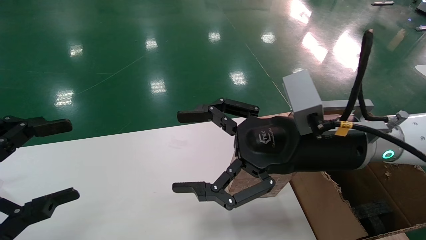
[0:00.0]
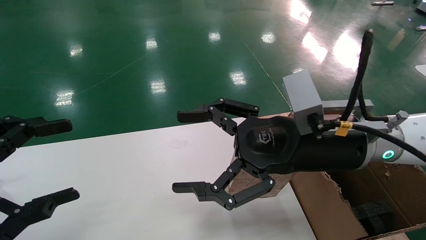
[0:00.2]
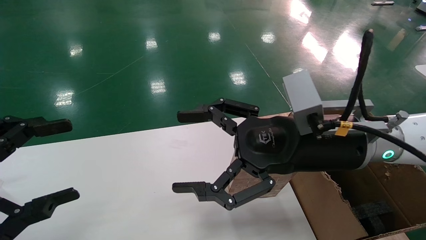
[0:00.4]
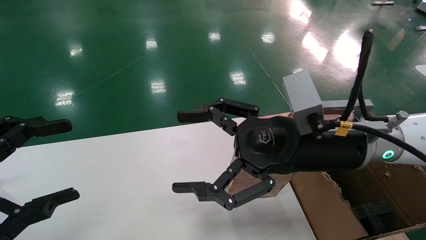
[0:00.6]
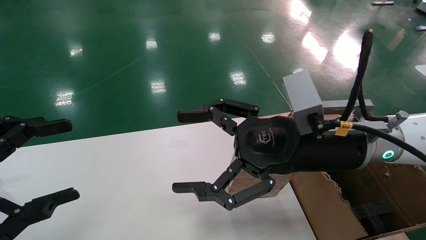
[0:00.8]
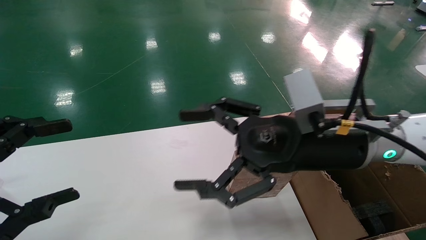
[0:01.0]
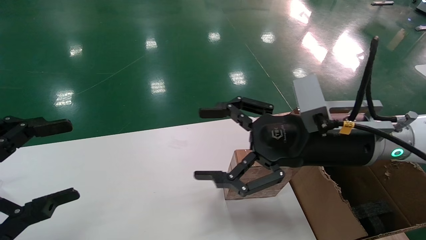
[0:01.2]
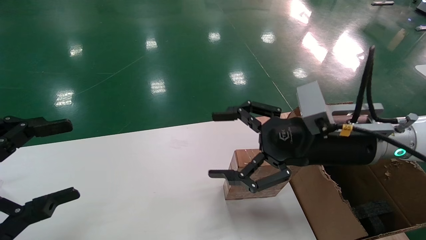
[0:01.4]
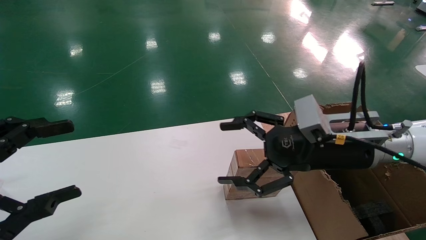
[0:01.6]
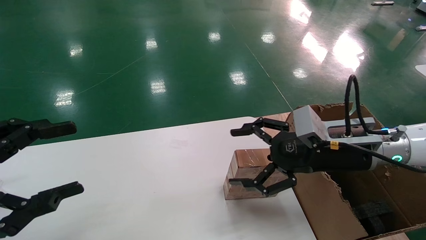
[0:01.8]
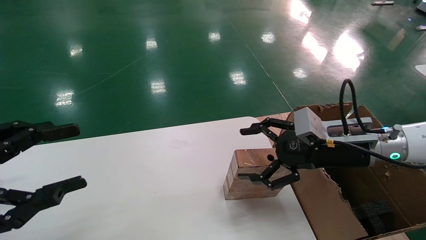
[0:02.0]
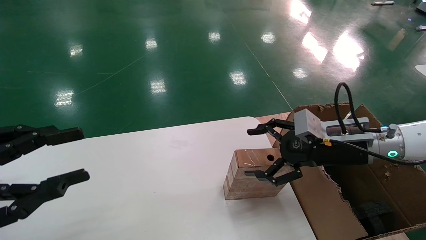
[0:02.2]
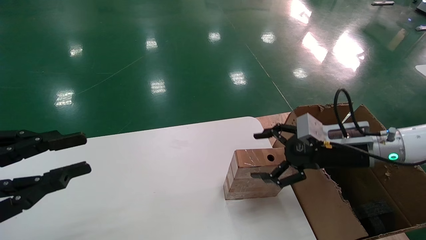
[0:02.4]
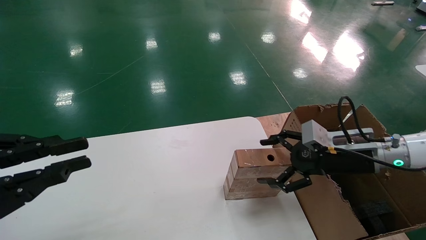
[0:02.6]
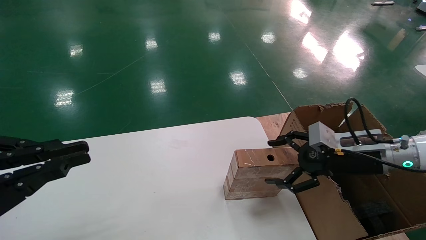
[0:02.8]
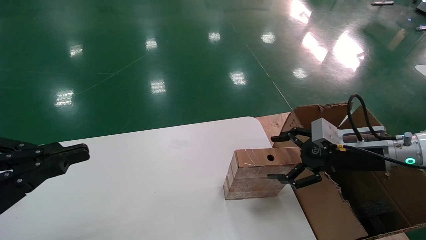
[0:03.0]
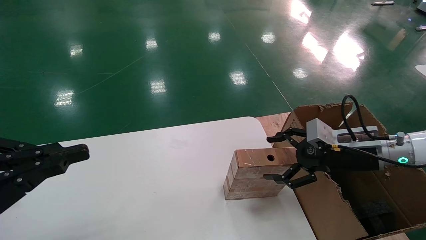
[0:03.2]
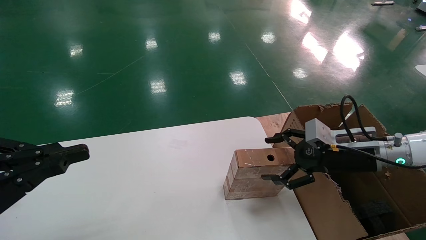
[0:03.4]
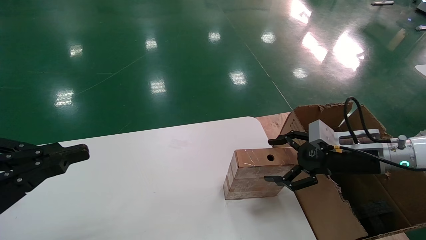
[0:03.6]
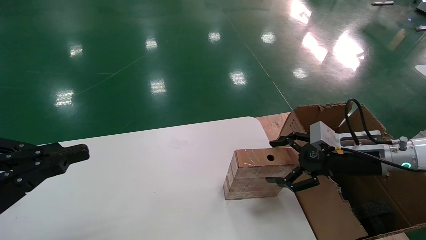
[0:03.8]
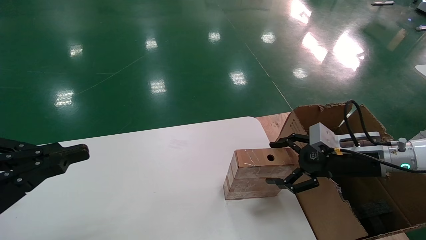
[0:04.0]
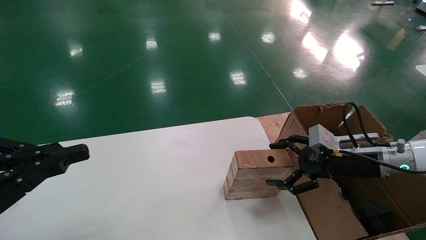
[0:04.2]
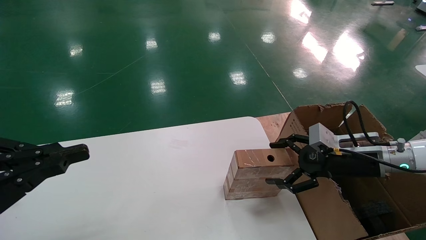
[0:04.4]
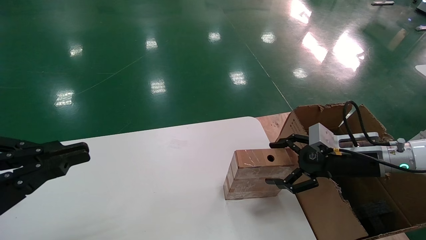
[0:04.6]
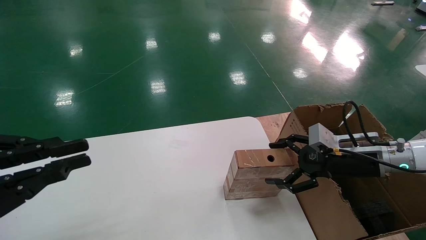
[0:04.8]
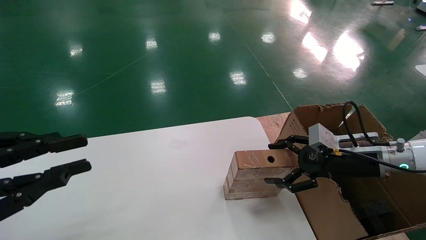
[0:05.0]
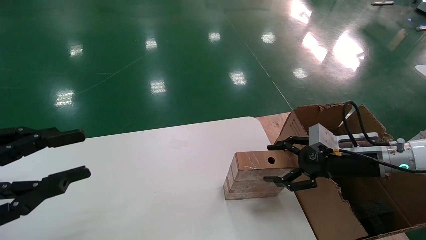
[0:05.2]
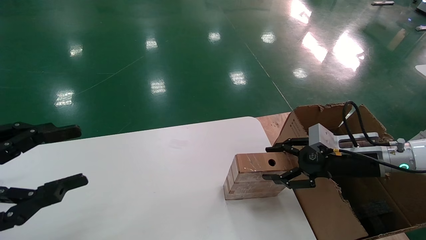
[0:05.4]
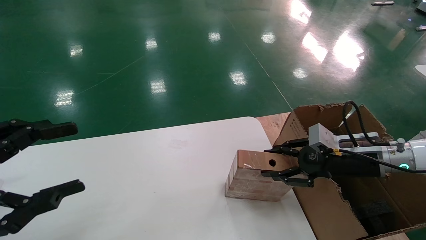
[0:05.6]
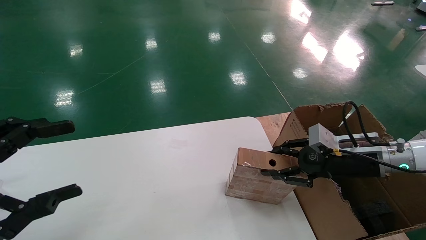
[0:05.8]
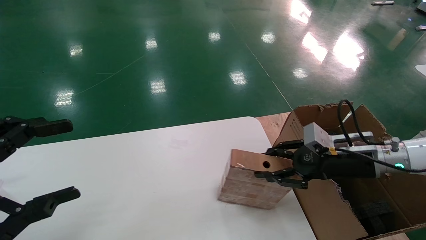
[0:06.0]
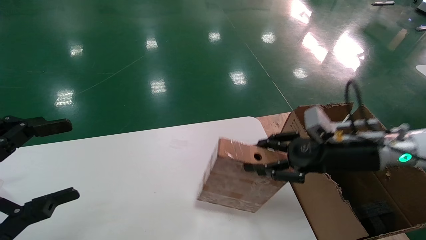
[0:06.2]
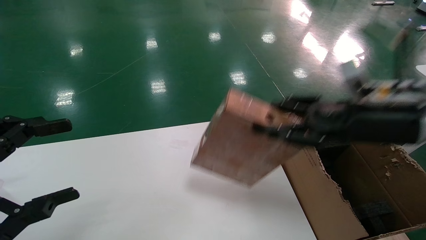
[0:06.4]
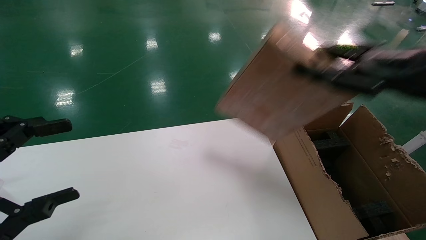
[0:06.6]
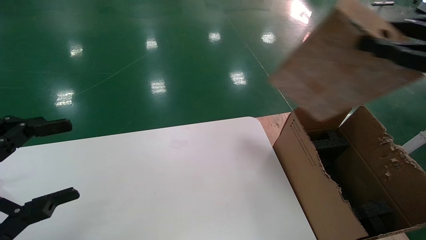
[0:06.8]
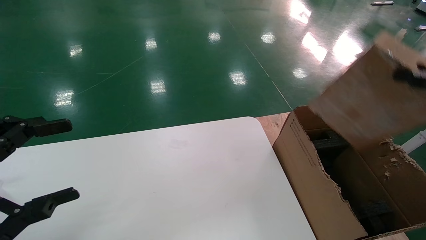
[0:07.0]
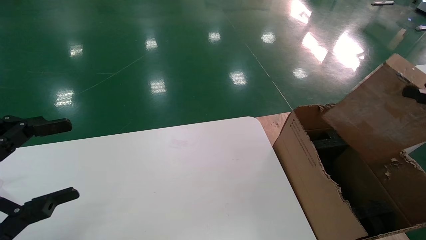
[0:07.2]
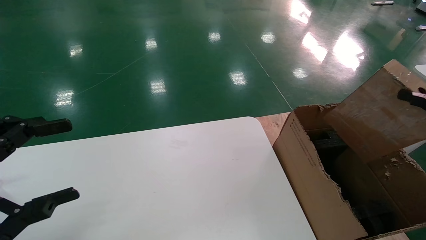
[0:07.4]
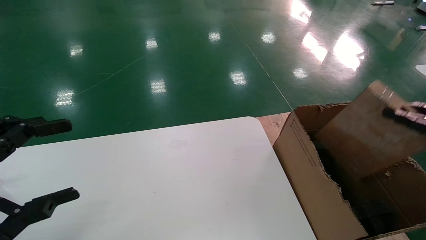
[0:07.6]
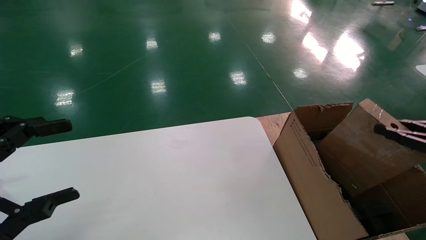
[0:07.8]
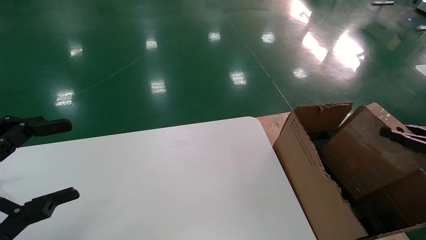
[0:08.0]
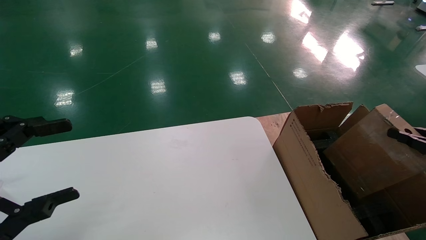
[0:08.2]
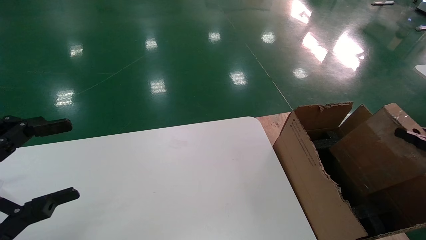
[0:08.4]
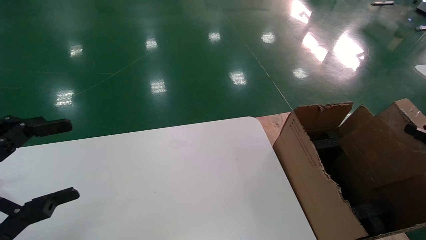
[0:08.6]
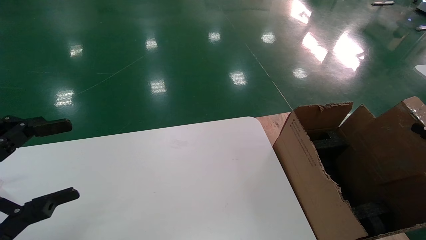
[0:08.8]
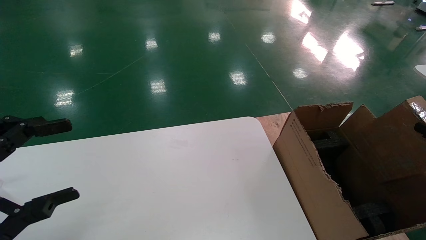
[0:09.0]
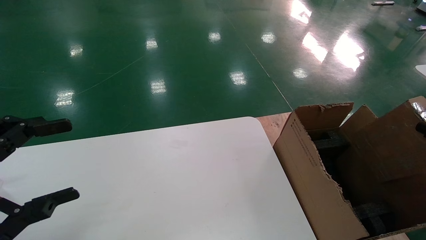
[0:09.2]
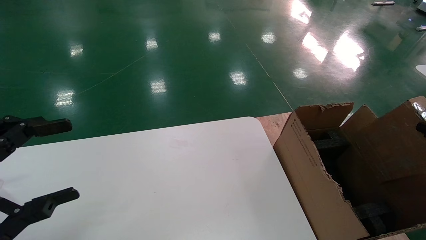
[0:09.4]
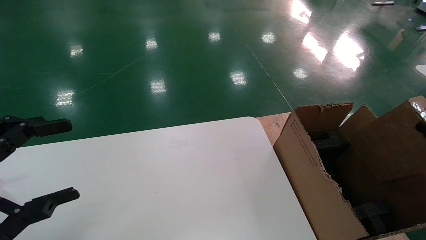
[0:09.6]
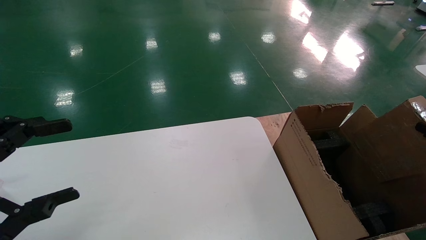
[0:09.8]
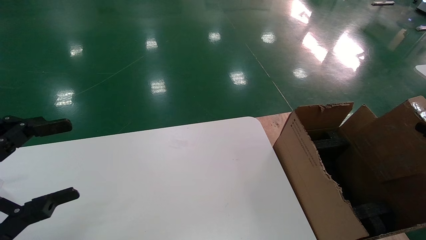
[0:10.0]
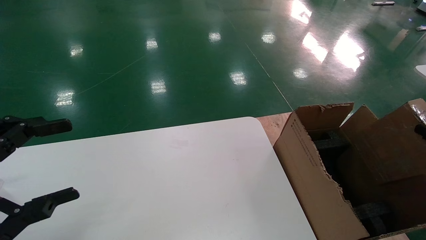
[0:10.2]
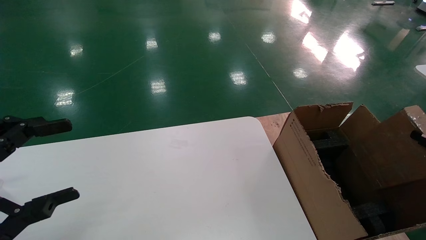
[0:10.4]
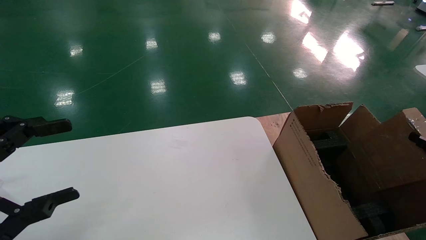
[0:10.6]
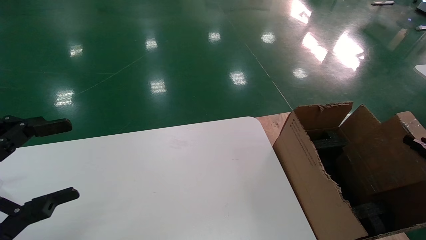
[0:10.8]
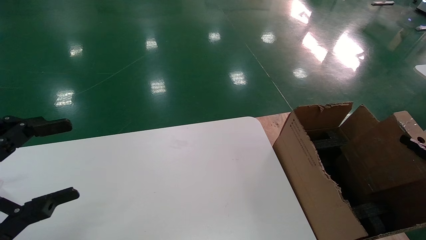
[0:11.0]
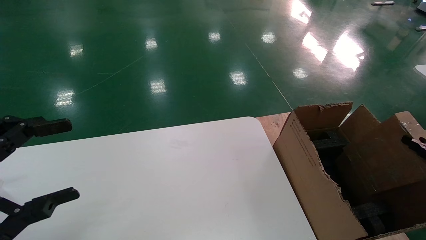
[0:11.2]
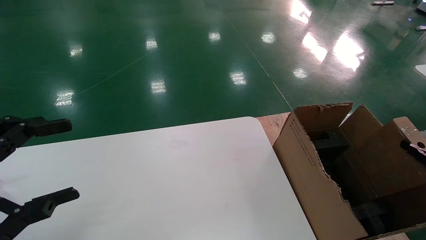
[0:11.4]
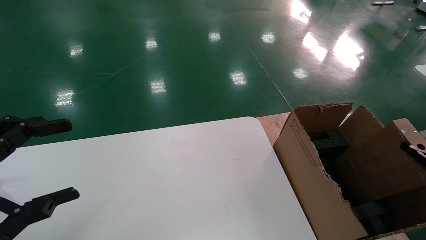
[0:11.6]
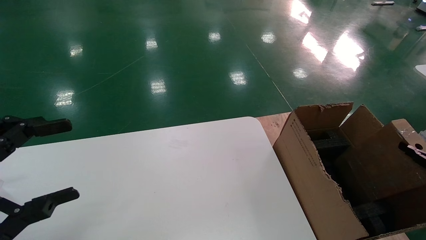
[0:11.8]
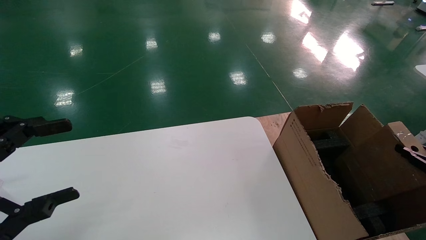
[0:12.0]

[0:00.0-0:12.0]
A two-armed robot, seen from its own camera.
Task of the whole recording: put the box on the table into the big box.
Step, 0:01.4 to 0:05.6: Pick up the mouse and the power cord paper box.
0:00.0 to 0:01.6: The right gripper is displaced to the right by approximately 5 cm.
0:01.6 to 0:03.0: The right gripper moves to the right and downward, some 10 cm; the left gripper closes its fingers.
0:03.0 to 0:04.4: The grippers move only a little.
0:04.4 to 0:06.0: The right gripper closes, while the left gripper opens up.
0:06.0 to 0:07.6: The right gripper moves to the right and backward, approximately 25 cm.
0:07.6 to 0:09.0: The right gripper shifts roughly 10 cm downward and to the right.
0:10.4 to 0:12.0: The grippers move only a little.

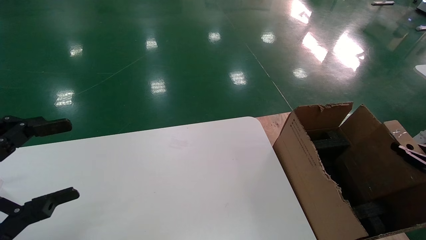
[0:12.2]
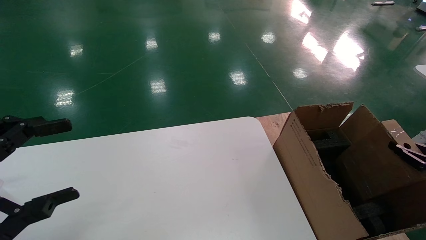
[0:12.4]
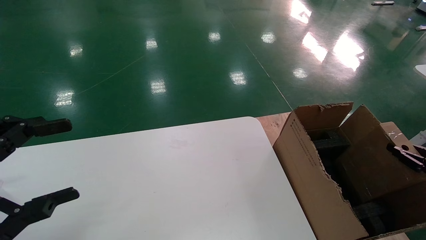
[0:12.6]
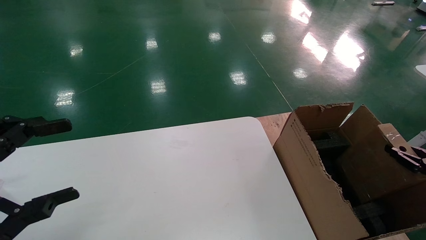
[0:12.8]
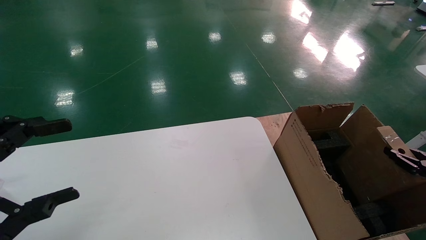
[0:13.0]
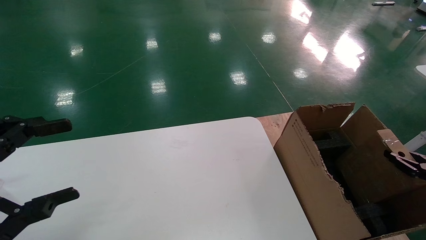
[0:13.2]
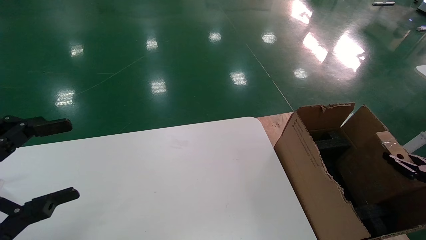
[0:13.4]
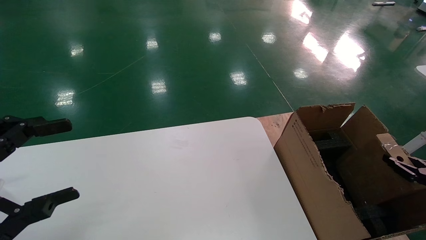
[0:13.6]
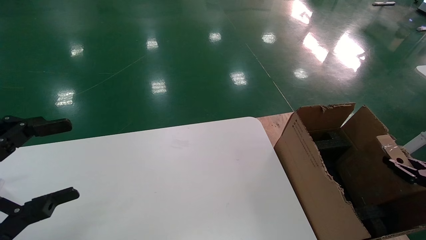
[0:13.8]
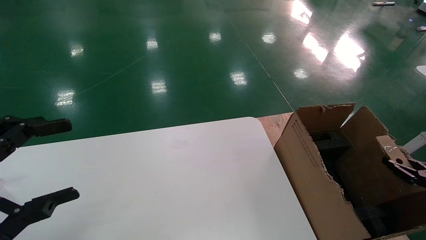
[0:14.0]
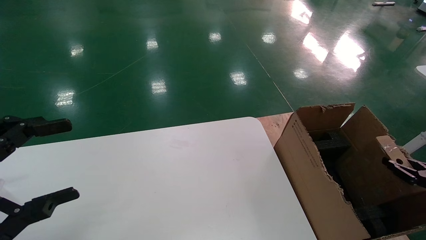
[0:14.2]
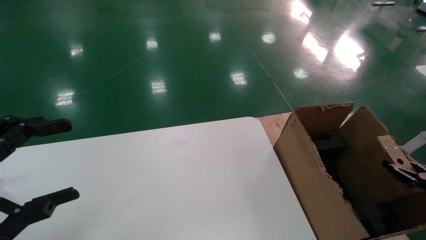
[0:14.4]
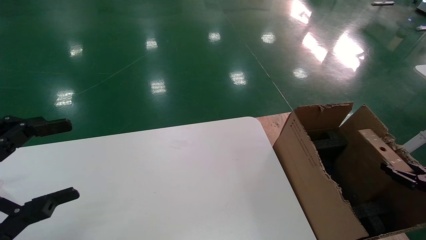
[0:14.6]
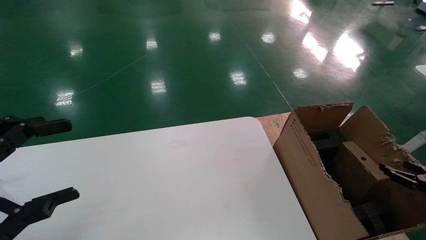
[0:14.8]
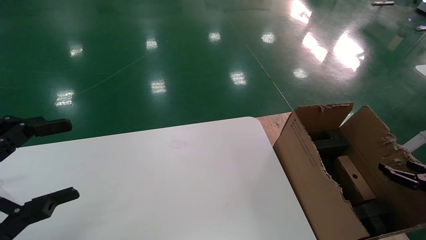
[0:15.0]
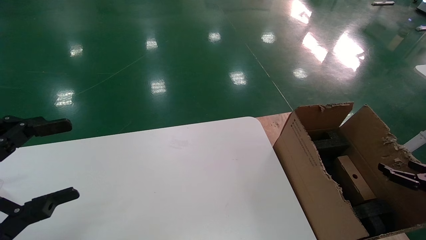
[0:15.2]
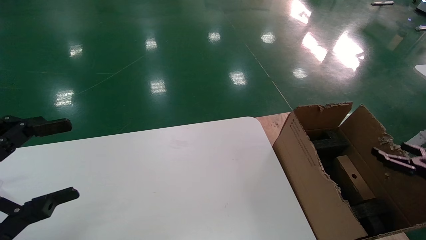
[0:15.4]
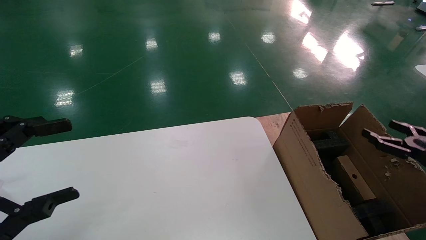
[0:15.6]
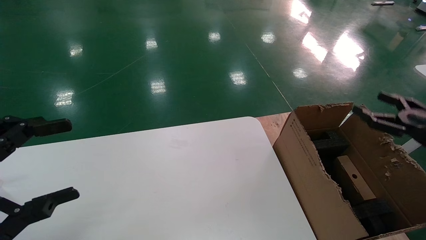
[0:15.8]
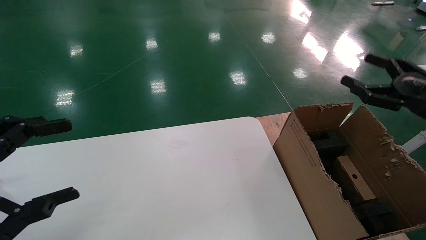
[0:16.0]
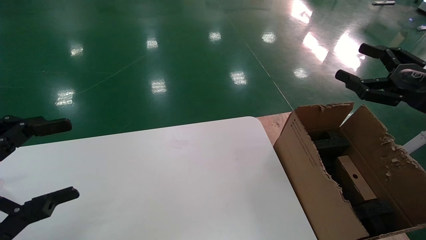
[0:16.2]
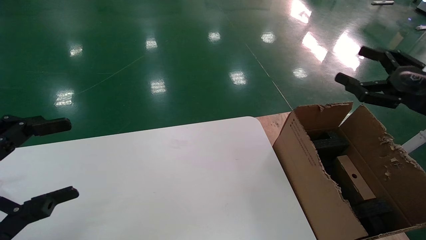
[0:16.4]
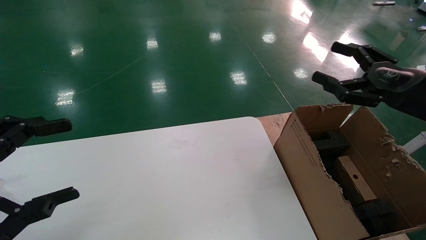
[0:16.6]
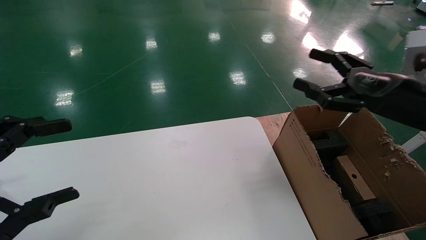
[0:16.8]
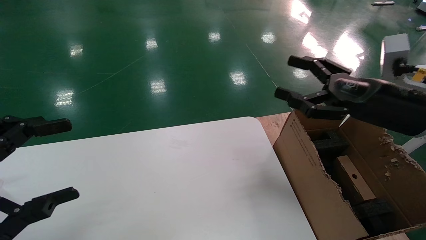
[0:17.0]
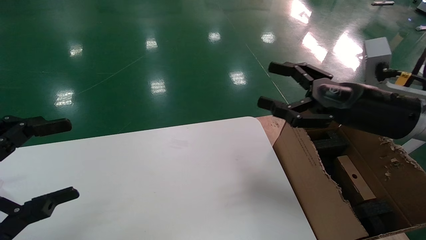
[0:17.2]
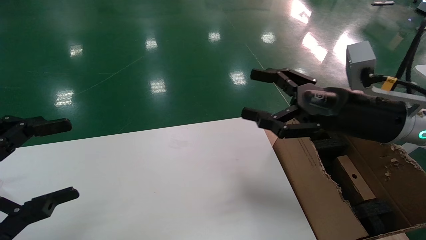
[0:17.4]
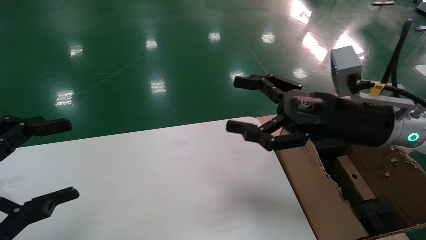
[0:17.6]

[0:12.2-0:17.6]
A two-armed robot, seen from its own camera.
Task of the whole recording: put the box on the table into the big box.
Step, 0:12.2 to 0:15.0: Place the mouse and the power cord paper box into the container.
0:12.2 to 0:13.6: The grippers stay close to where they were, moving slightly.
0:13.6 to 0:15.0: The right gripper opens its fingers.
0:15.0 to 0:16.2: The right gripper goes roughly 25 cm upward and to the left, and opens its fingers.
0:16.2 to 0:17.6: The right gripper goes some 20 cm to the left.
